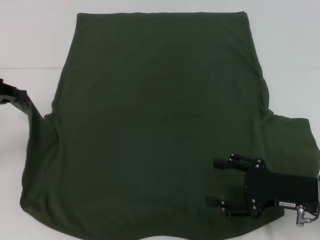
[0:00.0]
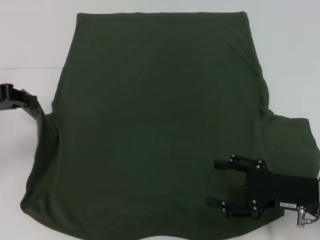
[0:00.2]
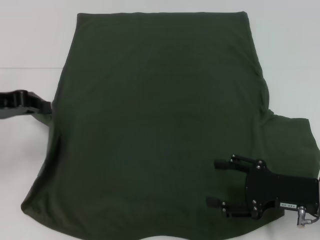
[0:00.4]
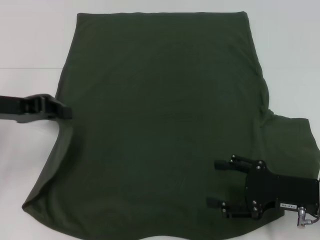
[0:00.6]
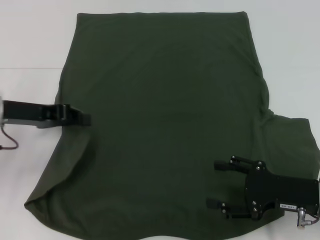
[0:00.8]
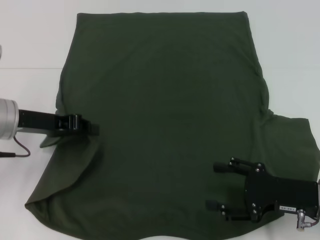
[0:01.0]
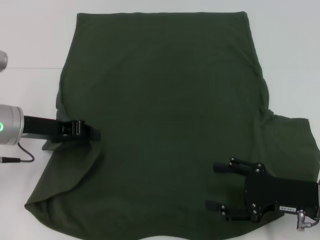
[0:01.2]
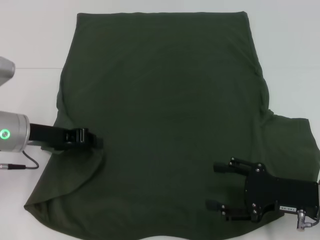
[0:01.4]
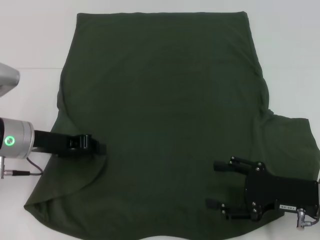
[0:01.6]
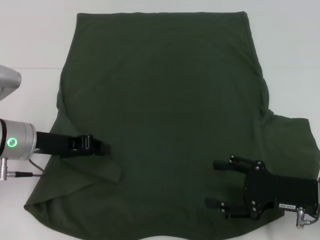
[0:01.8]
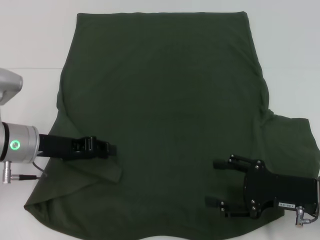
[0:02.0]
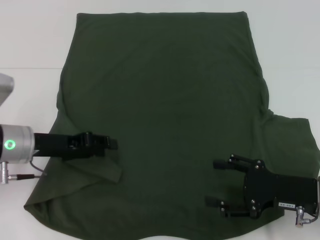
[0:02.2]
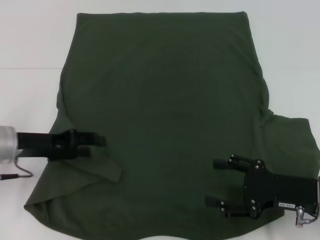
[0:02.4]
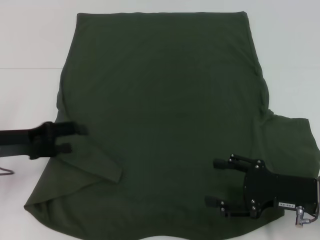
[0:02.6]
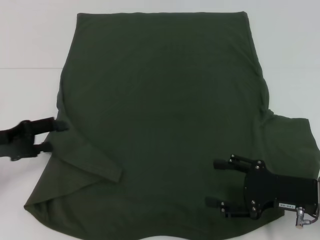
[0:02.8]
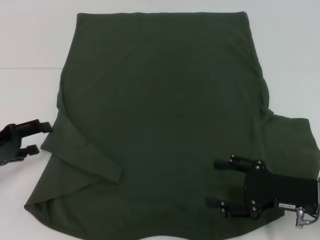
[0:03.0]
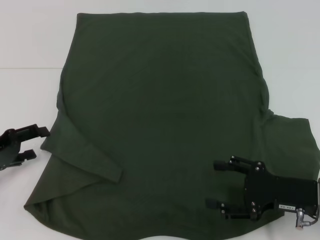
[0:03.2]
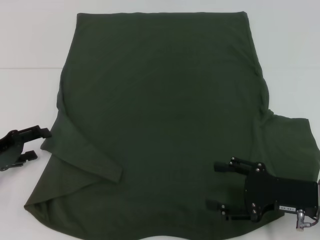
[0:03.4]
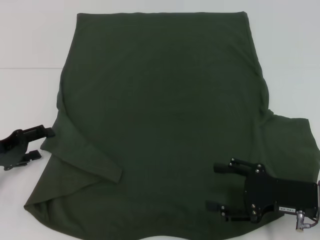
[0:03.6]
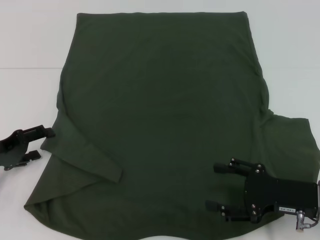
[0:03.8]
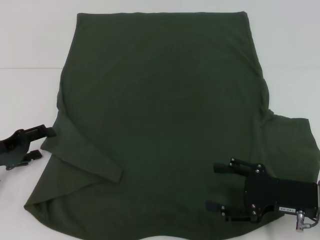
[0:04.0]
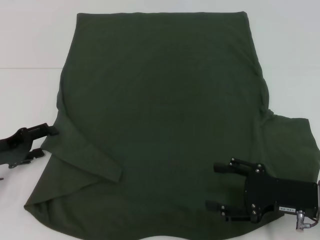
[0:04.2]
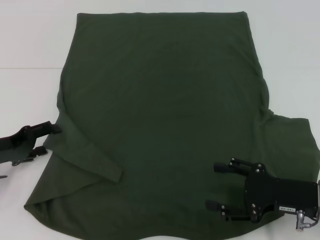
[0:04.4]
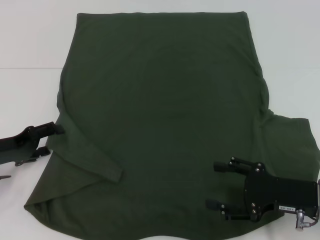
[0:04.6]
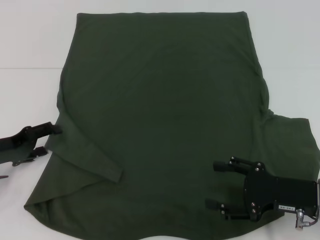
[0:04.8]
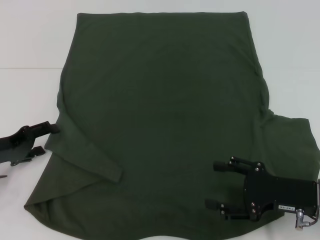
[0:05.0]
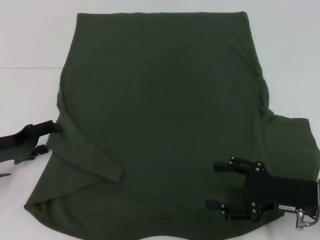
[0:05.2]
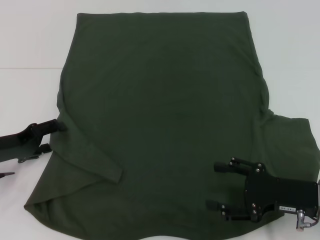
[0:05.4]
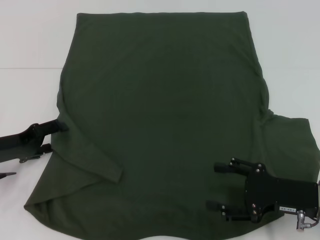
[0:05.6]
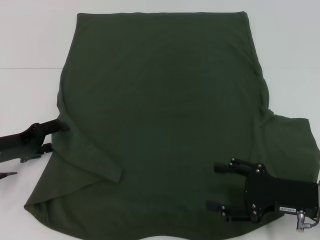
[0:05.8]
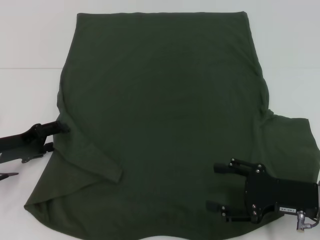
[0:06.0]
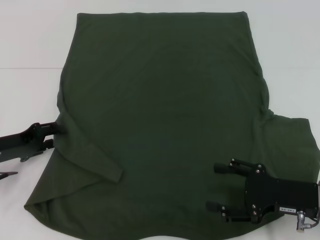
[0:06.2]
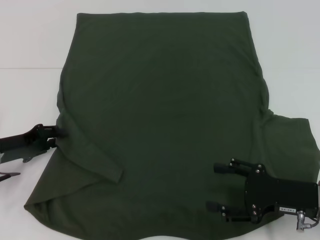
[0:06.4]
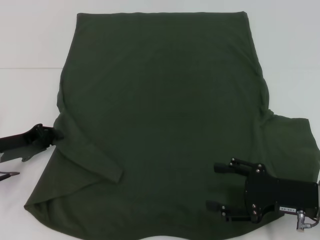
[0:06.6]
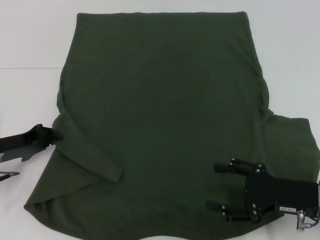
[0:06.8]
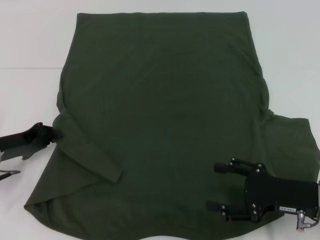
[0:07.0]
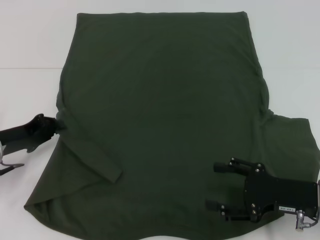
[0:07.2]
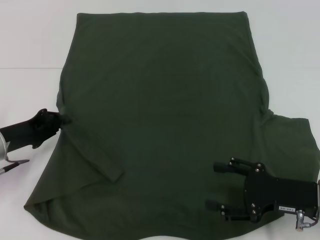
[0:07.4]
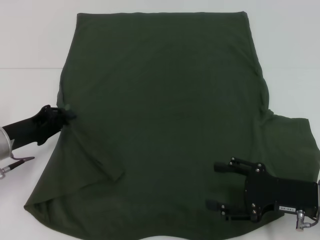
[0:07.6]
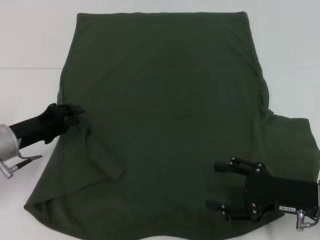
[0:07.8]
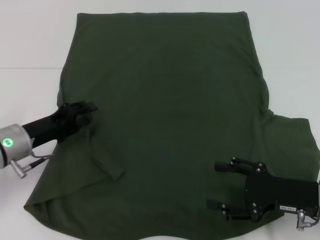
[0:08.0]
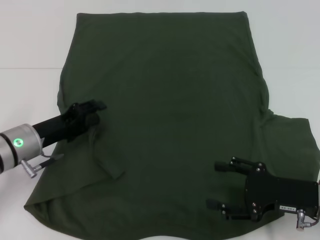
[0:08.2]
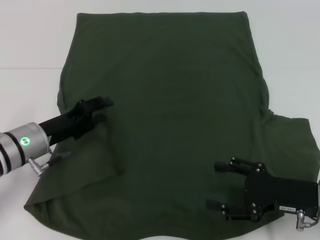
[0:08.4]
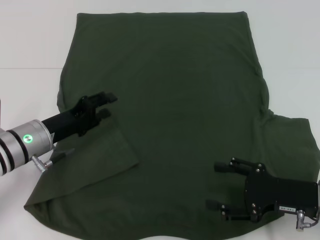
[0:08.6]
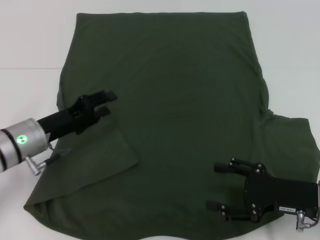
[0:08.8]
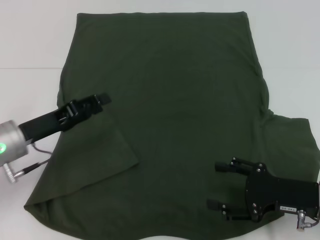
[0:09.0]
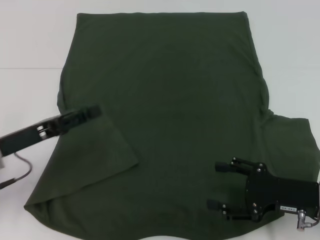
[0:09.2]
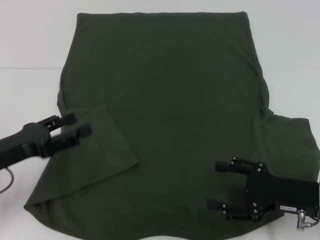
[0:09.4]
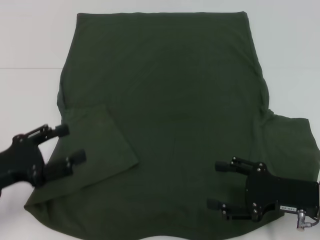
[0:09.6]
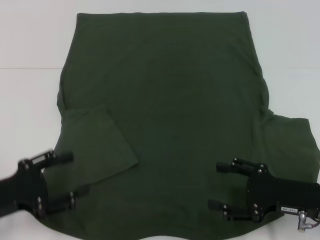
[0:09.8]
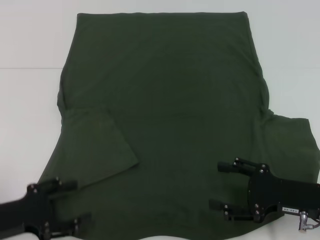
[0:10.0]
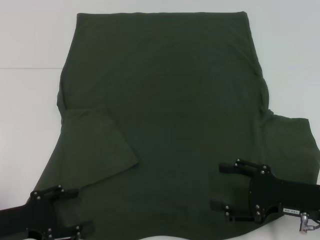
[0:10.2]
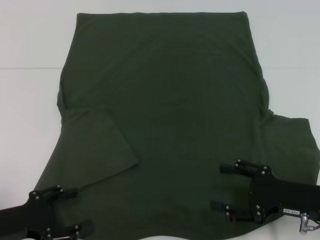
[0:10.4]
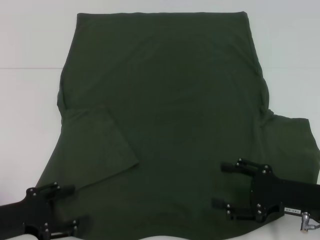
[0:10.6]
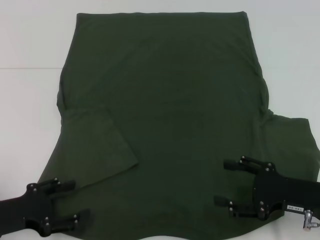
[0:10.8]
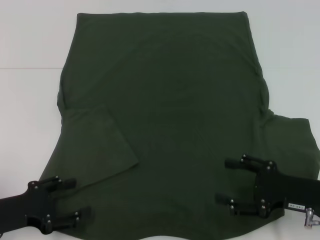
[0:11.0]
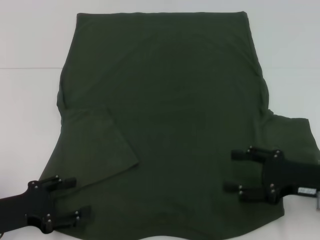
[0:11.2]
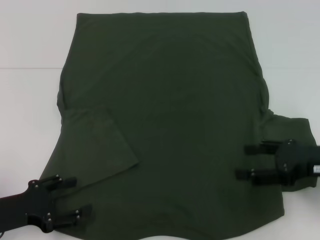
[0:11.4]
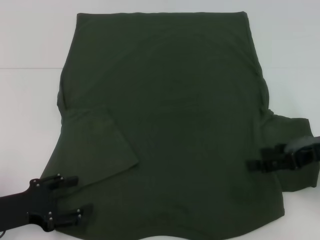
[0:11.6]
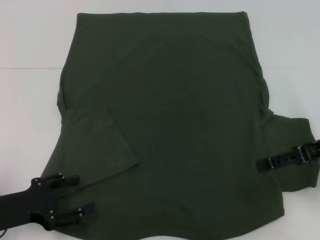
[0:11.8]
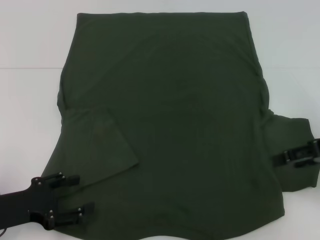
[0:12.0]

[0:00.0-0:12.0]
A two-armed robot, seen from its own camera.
Step, 0:00.0 to 0:11.6: Fold the bottom left sleeve with your left hand.
0:00.0 to 0:01.6: The left gripper moves to the right and downward, roughly 15 cm.
0:01.6 to 0:03.0: The left gripper is displaced to the left by roughly 10 cm, and opens.
0:03.0 to 0:06.0: The grippers stay close to where they were, moving slightly.
0:06.0 to 0:07.6: The left gripper closes.
0:07.6 to 0:09.0: The left gripper opens up.
0:09.0 to 0:10.4: The left gripper goes some 10 cm backward.
0:10.4 to 0:12.0: The right gripper is displaced upward and forward by roughly 15 cm.

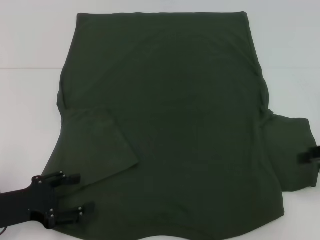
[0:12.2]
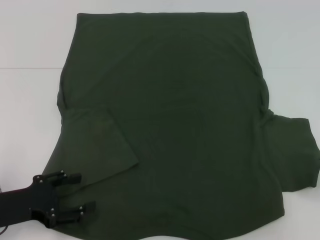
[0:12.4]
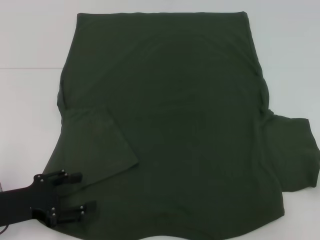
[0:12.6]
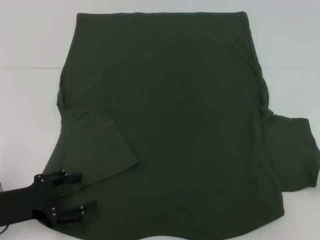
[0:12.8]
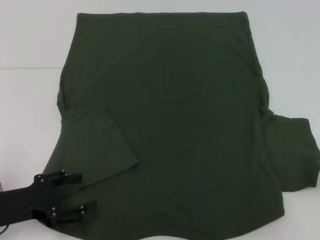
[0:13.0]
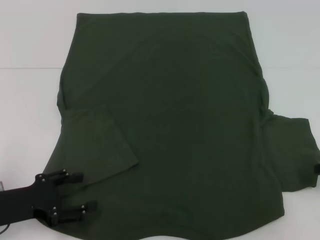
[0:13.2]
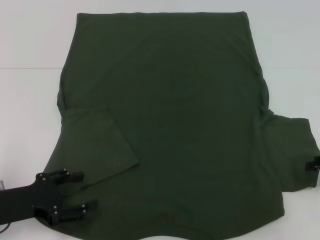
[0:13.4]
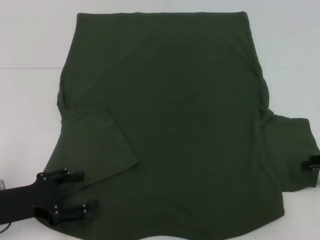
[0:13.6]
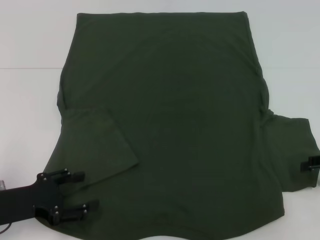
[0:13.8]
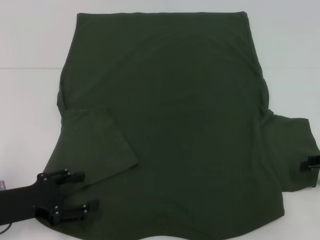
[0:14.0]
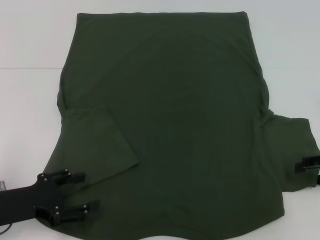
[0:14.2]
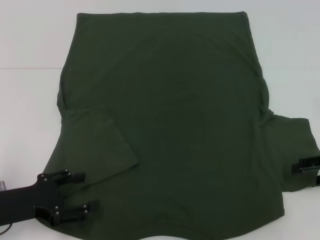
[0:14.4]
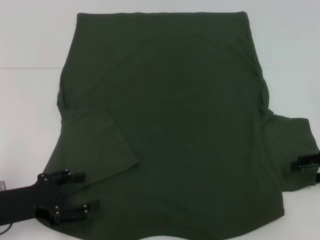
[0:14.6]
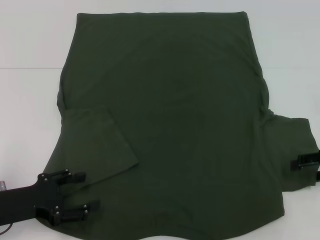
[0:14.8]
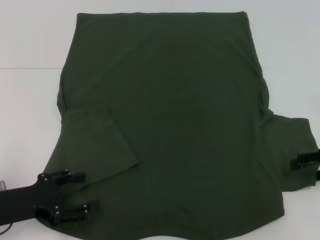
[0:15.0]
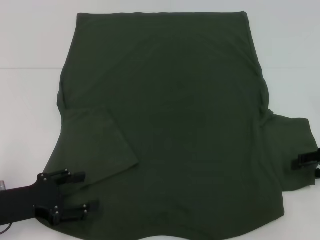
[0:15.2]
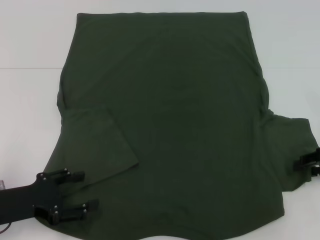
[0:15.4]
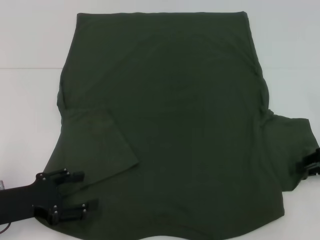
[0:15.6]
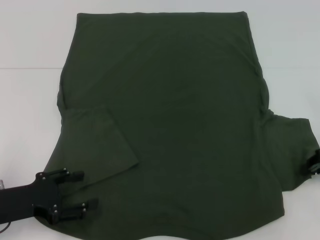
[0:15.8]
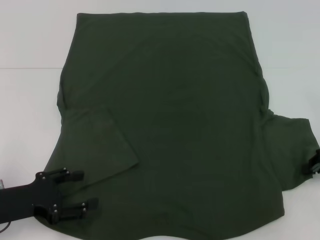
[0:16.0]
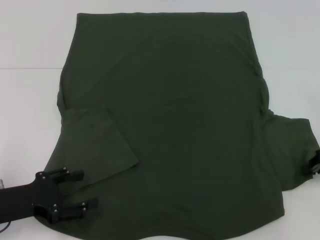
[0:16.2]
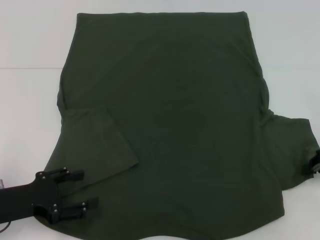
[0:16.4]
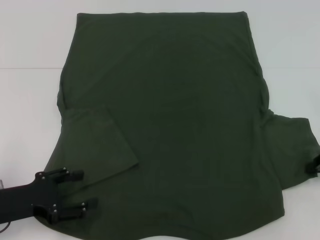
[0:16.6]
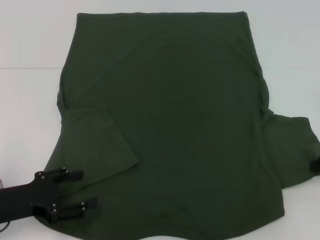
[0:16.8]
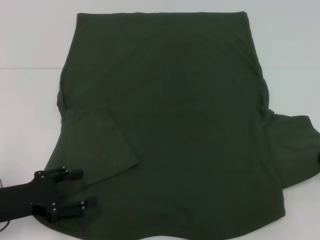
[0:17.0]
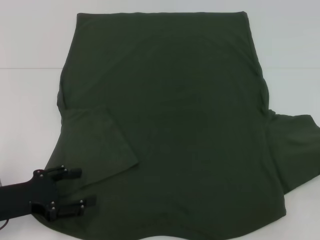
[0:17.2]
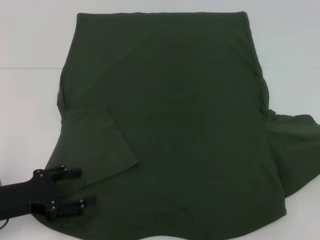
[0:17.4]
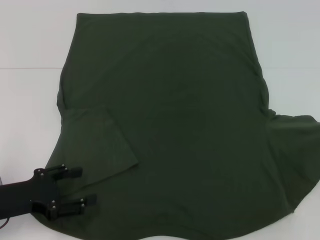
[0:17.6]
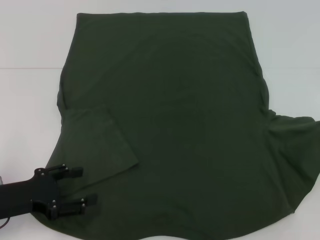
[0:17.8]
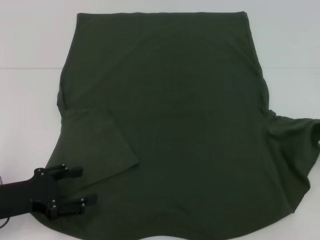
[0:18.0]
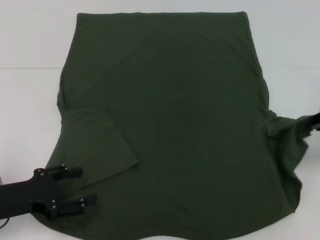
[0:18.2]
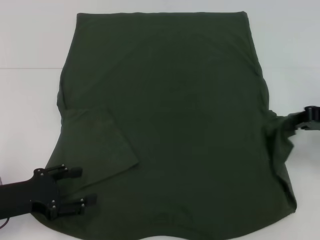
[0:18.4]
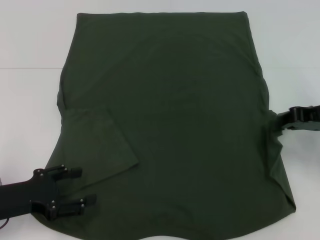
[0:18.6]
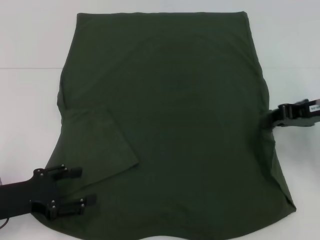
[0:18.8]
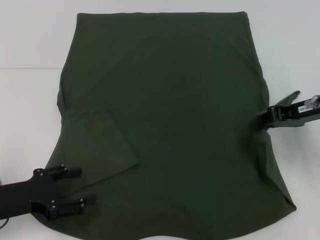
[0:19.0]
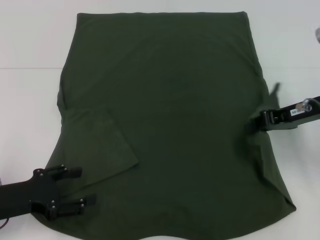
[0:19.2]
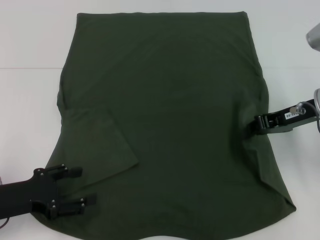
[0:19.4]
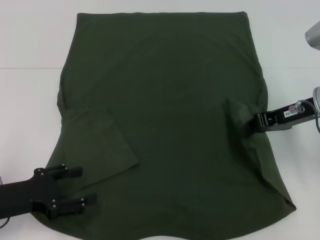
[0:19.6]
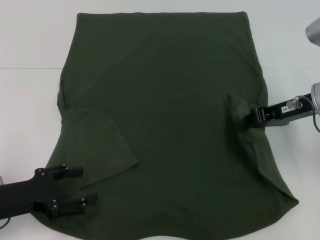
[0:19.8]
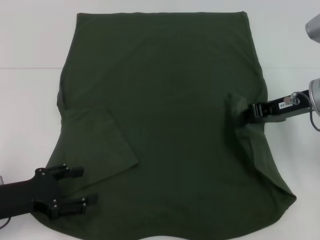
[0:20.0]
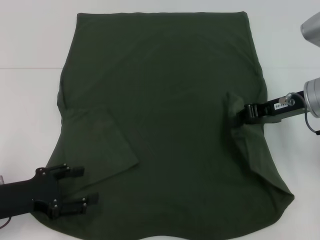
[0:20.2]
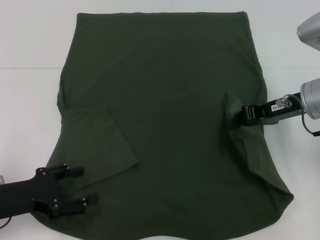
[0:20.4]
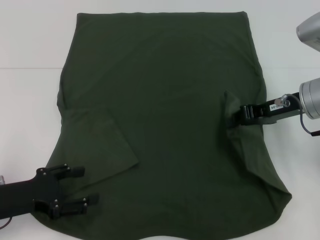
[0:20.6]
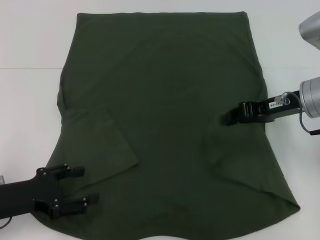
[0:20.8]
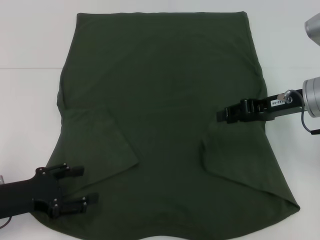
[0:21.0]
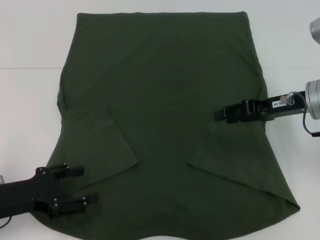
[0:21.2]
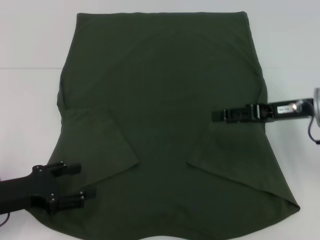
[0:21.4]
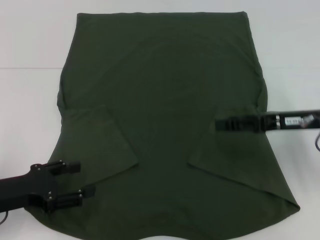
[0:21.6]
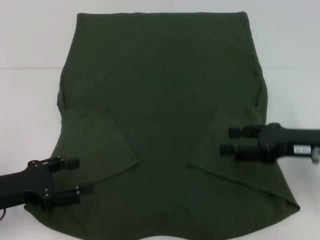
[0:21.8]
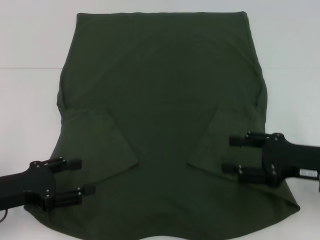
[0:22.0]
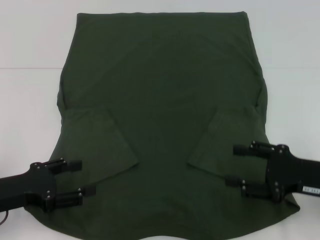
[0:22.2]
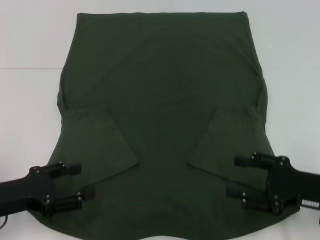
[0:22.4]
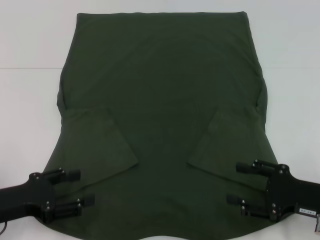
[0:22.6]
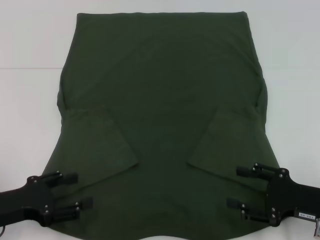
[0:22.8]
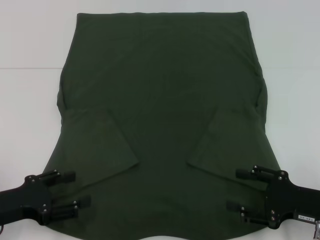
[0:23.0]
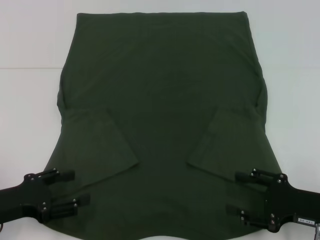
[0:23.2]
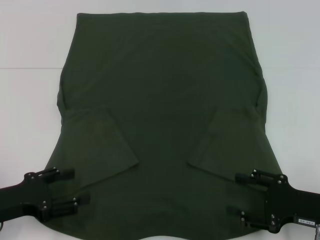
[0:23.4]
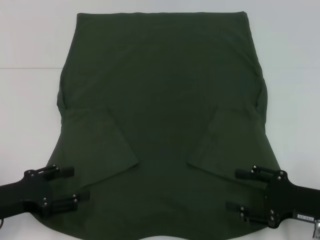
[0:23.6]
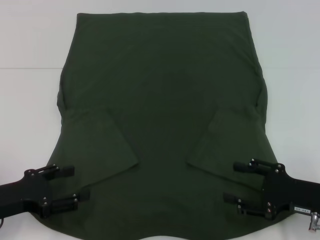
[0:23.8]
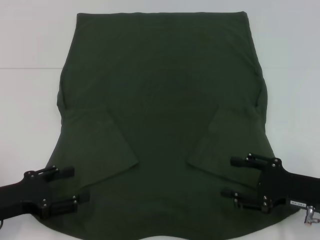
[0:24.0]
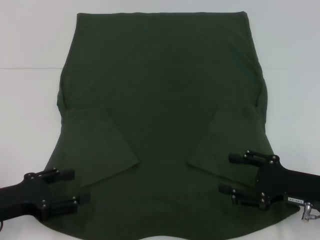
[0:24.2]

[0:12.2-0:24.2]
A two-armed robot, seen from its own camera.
Step, 0:12.2 to 0:21.4: Fold the bottom right sleeve with your right hand.
0:15.2 to 0:16.6: The right gripper closes up.
0:16.6 to 0:18.2: The right gripper shifts by roughly 5 cm.
0:18.2 to 0:19.8: The right gripper is displaced to the left by some 10 cm.
0:19.8 to 0:21.2: The right gripper opens its fingers.
0:21.2 to 0:22.6: The right gripper is displaced backward and downward by about 15 cm, and opens.
0:22.6 to 0:24.2: The grippers move only a little.
